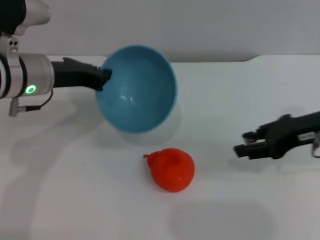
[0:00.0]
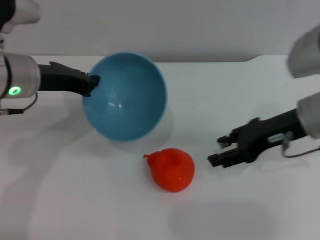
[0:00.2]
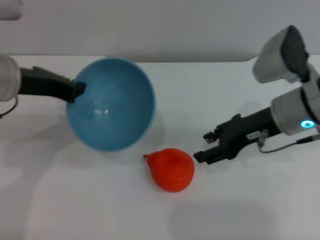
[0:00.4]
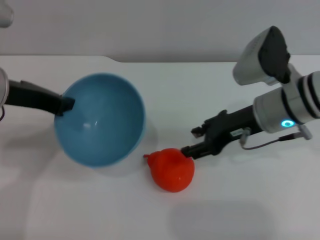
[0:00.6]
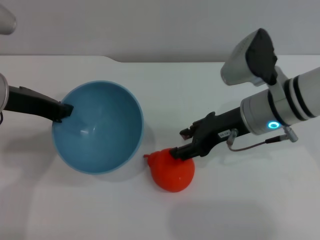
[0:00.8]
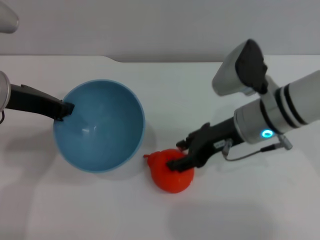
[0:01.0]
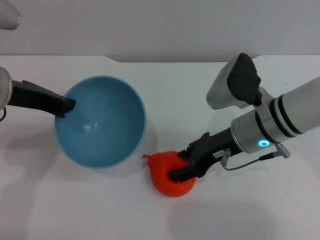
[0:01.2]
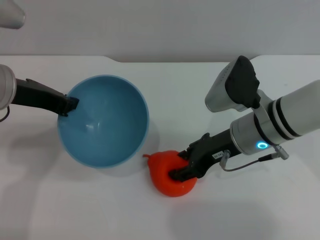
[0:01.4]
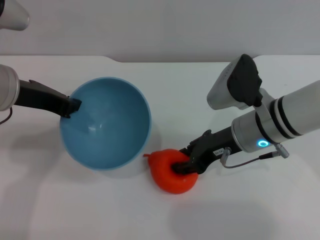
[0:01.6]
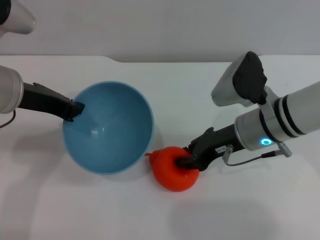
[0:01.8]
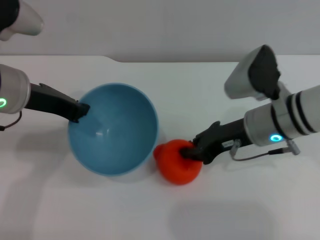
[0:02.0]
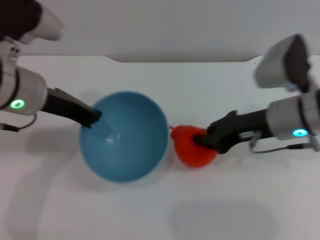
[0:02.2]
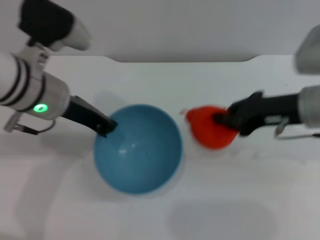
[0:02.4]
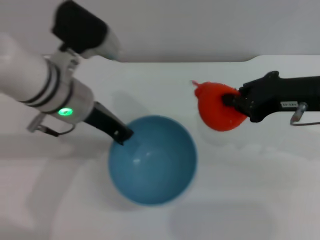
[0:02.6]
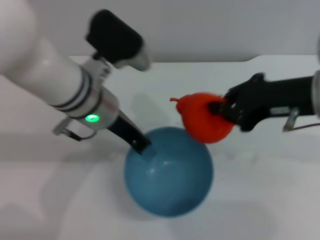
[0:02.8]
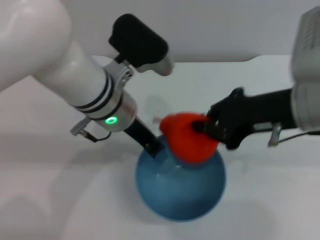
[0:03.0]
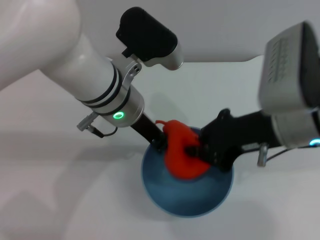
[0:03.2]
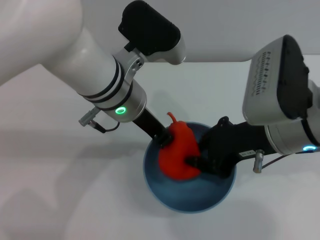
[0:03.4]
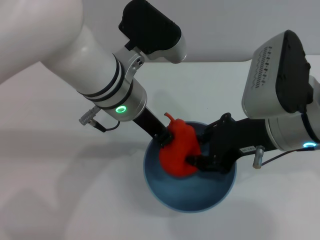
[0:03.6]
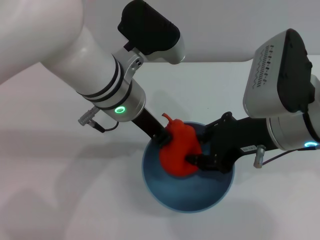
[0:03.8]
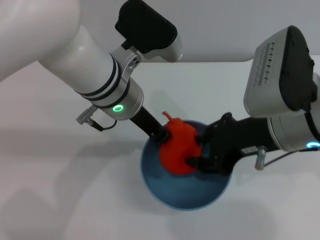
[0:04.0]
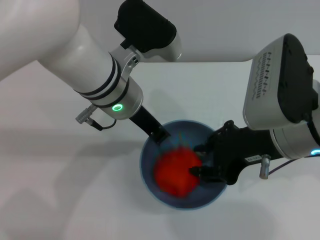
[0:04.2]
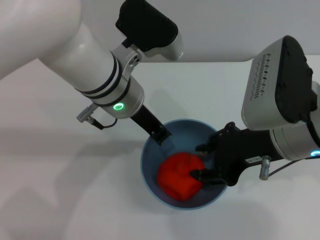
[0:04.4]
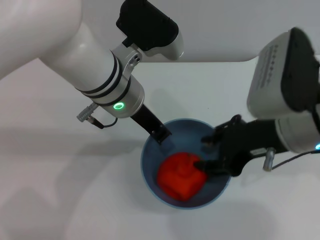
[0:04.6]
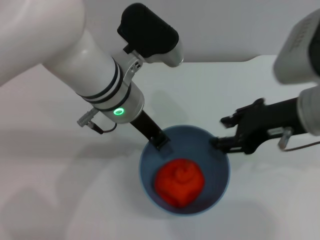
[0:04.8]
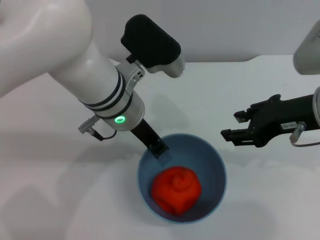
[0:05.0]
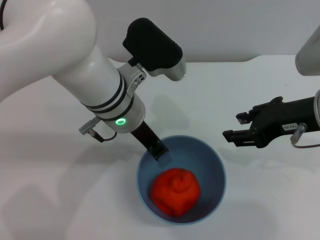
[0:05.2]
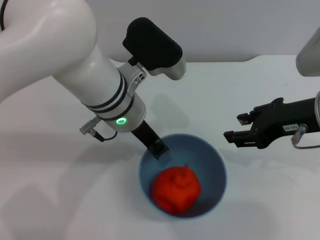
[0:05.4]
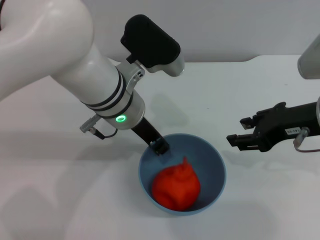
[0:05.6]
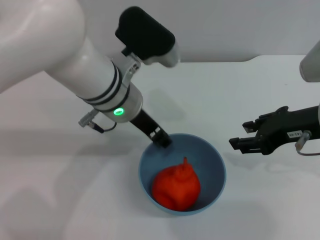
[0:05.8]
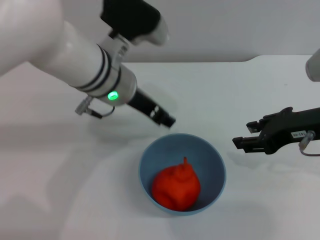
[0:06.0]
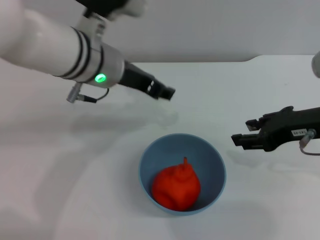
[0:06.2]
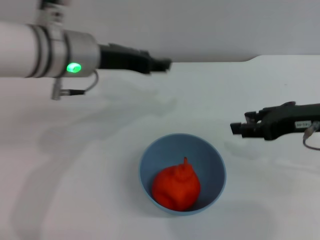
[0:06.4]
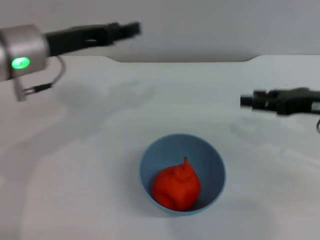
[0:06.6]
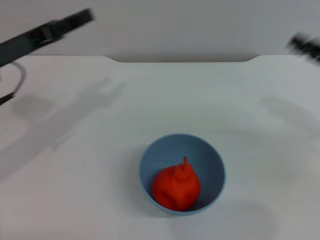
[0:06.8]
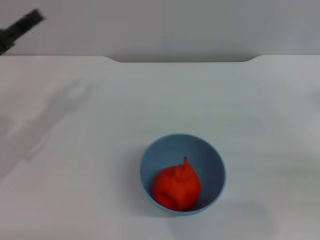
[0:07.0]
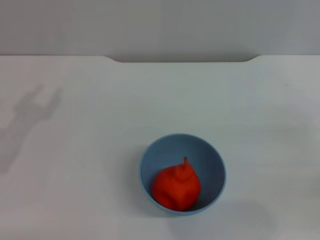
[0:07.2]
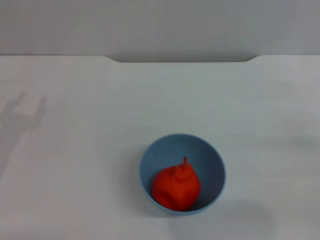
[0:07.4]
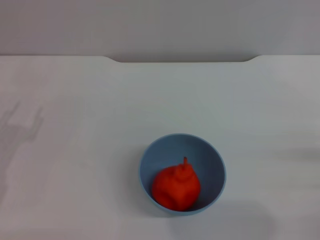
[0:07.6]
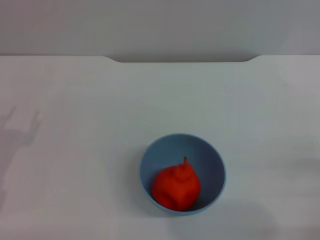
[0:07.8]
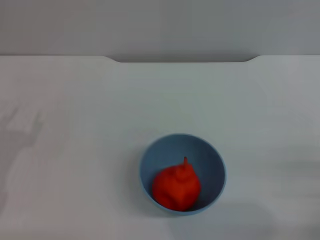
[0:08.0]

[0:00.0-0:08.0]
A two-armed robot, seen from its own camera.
Task of the whole recording: put the orange into the blue bowl and pour it out repeatedly.
Step, 0:00.0 to 0:02.2: Pick up the orange with the right gripper.
Step, 0:02.6 to 0:04.6: Place the orange into the bowl.
Step, 0:04.8 to 0:06.0: Place the bowl on the table.
0:00.0 to 0:01.6: The right gripper travels to the left and downward by some 15 cm, and opens up. The left gripper ends up roughly 5 cm from where it was.
0:01.6 to 0:03.2: The left gripper moves to the right, some 15 cm, while the right gripper shifts some 10 cm upward and backward, and closes up.
0:03.2 to 0:04.8: The right gripper opens up.
0:04.8 to 0:06.4: The right gripper moves to the right, roughly 5 cm; the left gripper shifts about 5 cm to the left, and opens up.
0:06.4 to 0:08.0: The left gripper is displaced to the left, backward and downward by roughly 30 cm. The right gripper goes about 20 cm downward, backward and to the right.
